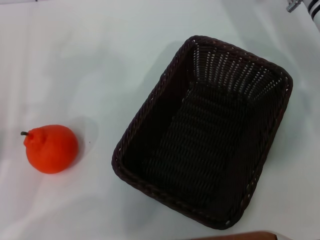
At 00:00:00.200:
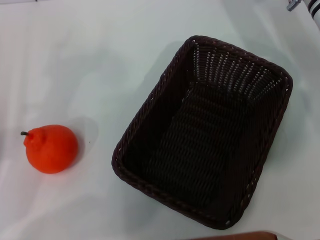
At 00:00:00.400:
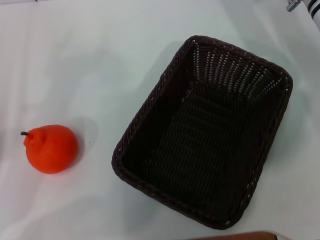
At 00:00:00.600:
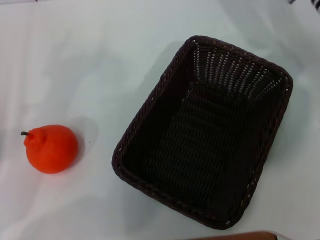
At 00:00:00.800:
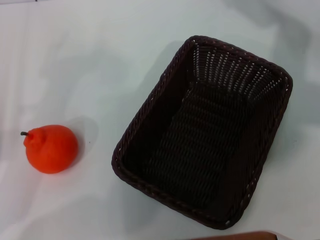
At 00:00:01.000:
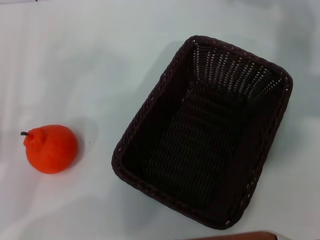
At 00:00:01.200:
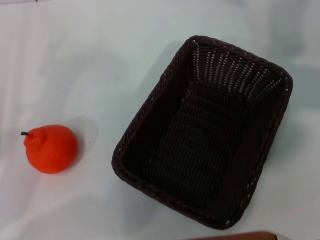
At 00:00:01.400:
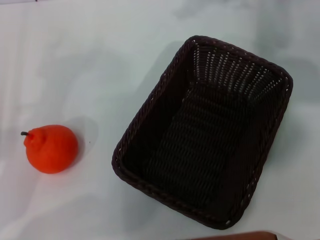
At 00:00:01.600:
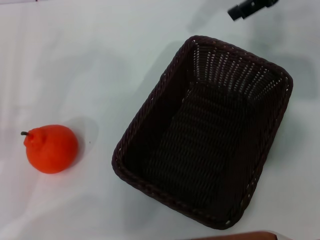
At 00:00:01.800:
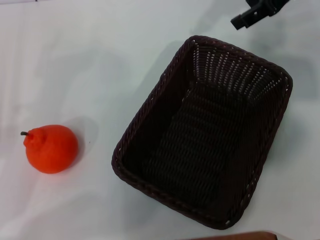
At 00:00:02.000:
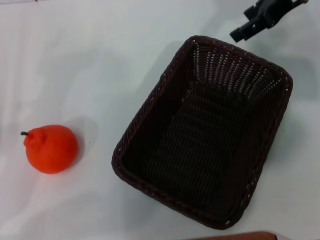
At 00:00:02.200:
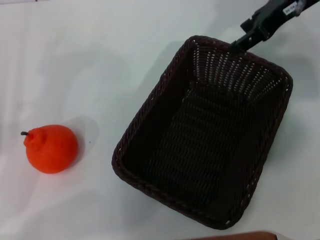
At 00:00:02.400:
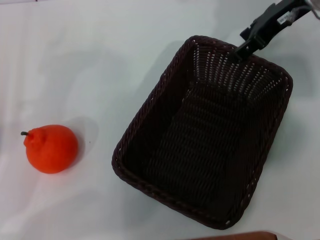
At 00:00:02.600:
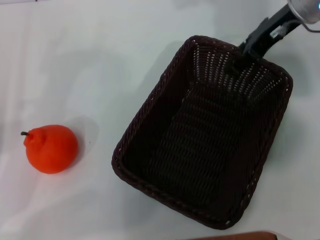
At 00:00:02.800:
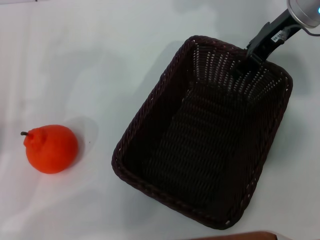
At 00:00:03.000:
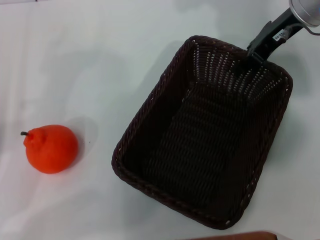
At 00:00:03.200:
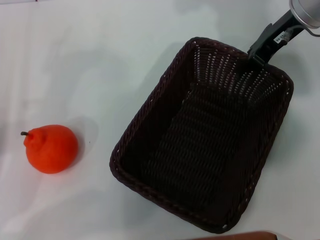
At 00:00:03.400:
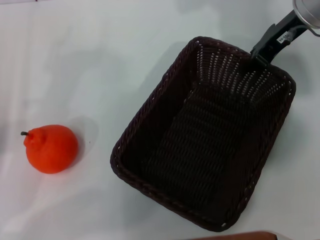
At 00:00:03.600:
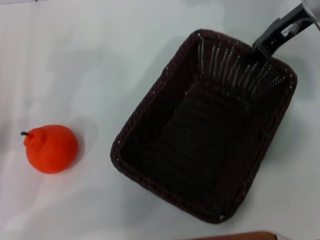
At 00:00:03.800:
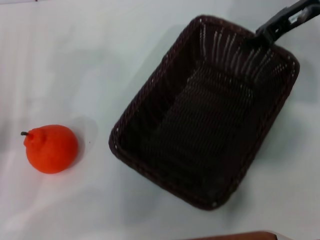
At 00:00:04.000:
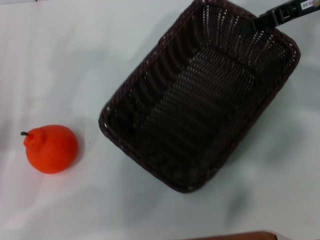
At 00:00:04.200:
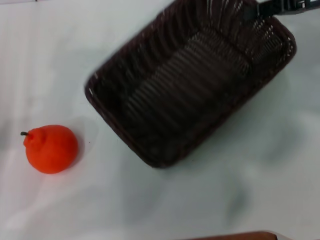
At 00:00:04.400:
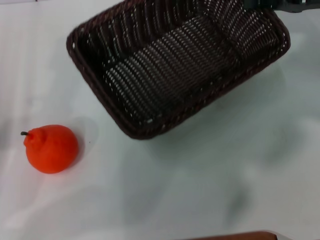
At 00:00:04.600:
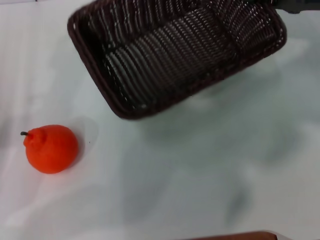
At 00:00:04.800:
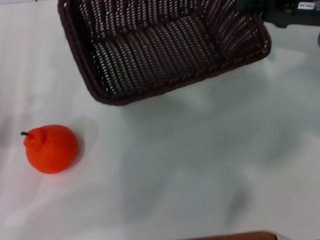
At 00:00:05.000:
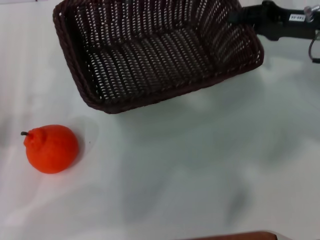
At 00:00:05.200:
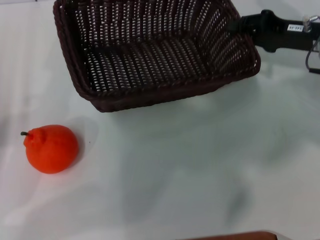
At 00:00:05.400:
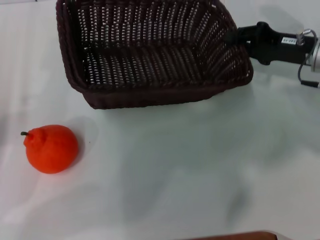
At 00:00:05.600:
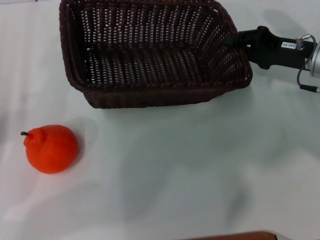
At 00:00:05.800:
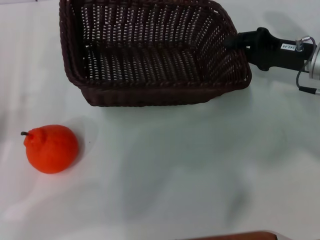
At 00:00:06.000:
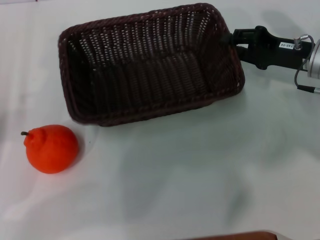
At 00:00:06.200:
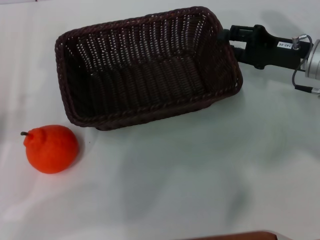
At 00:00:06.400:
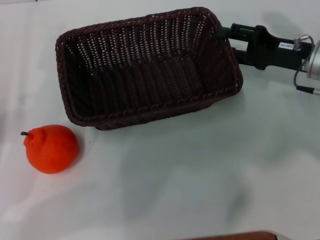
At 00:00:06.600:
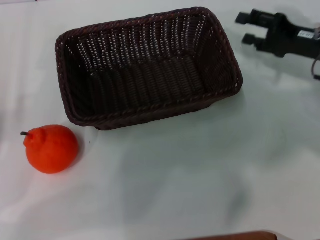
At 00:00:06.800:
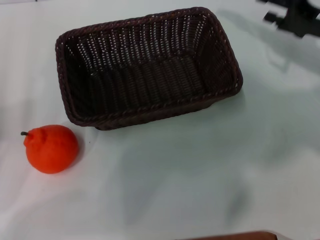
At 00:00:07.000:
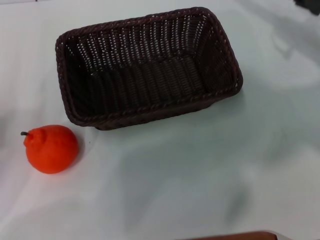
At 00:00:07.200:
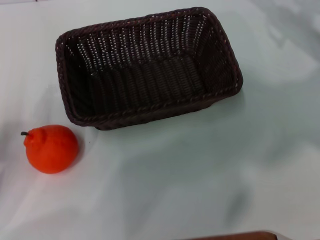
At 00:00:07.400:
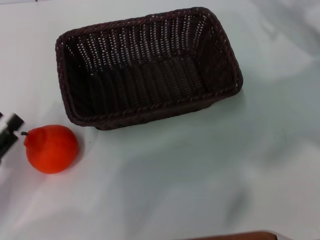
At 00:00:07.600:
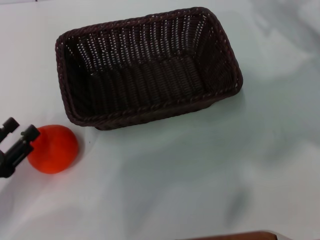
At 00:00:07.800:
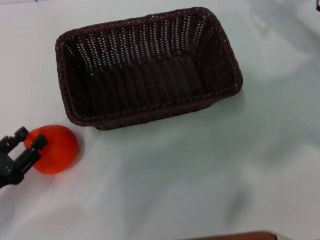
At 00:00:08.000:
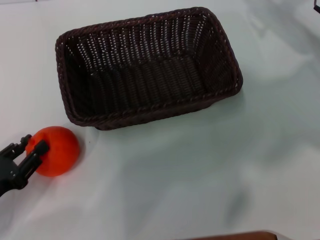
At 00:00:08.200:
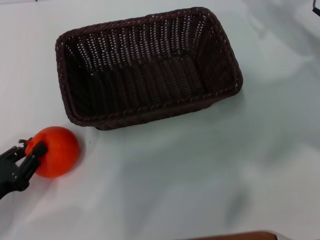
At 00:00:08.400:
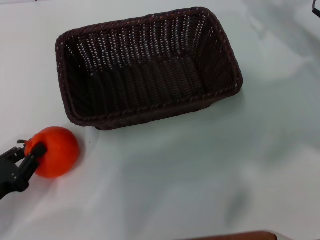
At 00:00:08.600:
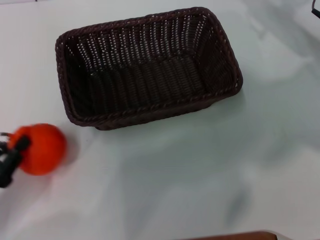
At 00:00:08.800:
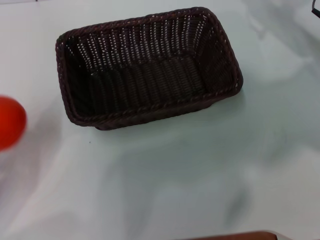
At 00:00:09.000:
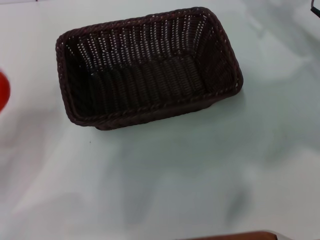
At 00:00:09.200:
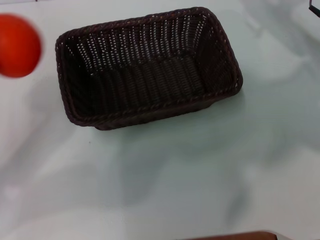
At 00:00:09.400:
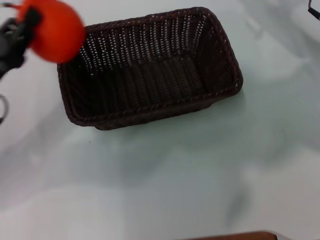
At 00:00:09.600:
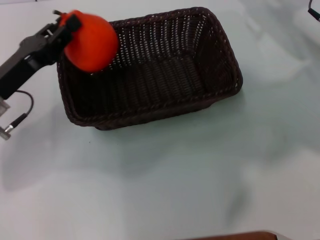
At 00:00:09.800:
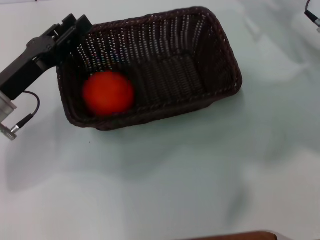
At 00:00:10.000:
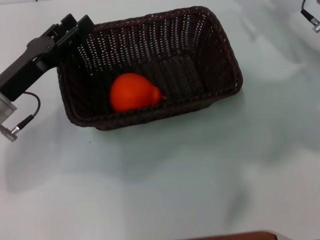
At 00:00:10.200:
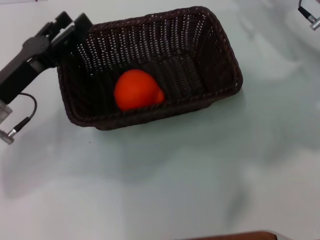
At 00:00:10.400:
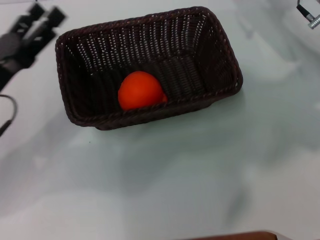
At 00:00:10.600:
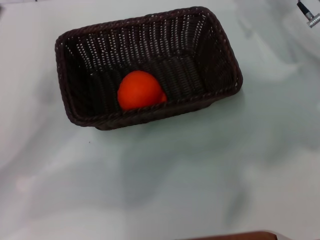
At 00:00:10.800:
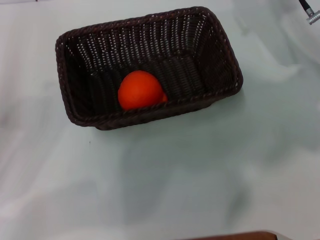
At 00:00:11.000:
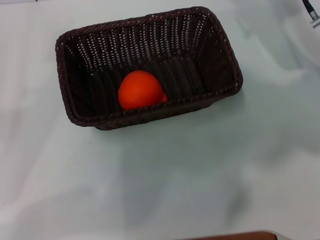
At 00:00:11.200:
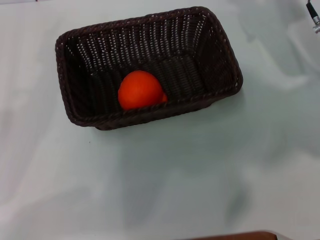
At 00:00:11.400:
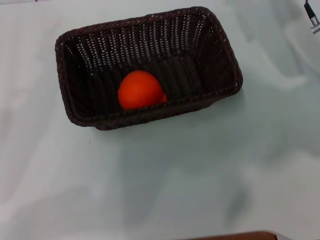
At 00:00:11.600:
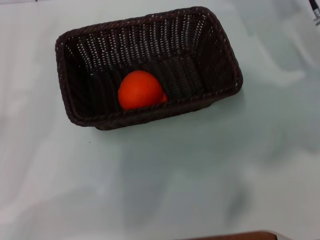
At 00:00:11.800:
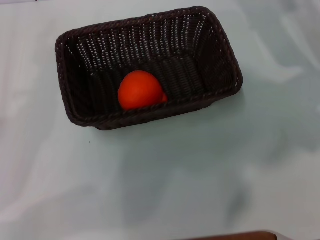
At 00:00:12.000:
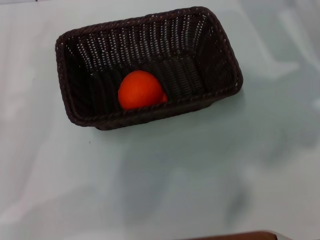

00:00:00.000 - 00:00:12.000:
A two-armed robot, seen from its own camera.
Task of the whole recording: the right gripper pick up the black basket and place it horizontally in the middle of the table, the left gripper pick up the orange and place it into the black basket.
Step, 00:00:00.000 - 00:00:04.000: Pick up the dark basket with the right gripper.
Step, 00:00:04.200 - 00:00:06.400: Place the dark basket in the center of view with the right gripper.
Step, 00:00:06.800 - 00:00:08.400: Pick up the orange with the left gripper.
Step, 00:00:08.800 - 00:00:09.800: Place the orange into the dark basket with the left gripper.
00:00:00.000 - 00:00:01.600: The right gripper goes about 15 cm upward.
00:00:01.600 - 00:00:03.000: The right gripper travels downward by some 5 cm.
00:00:03.000 - 00:00:04.400: The right gripper moves to the right, approximately 10 cm, and closes up.
00:00:04.400 - 00:00:06.000: The right gripper heads downward, covering about 10 cm.
00:00:06.000 - 00:00:07.600: The left gripper goes some 5 cm backward. Meanwhile the right gripper moves forward and upward, some 10 cm, and opens up.
00:00:07.600 - 00:00:09.000: The left gripper closes.
00:00:09.000 - 00:00:10.400: The left gripper goes about 10 cm forward and to the right, and opens up.
00:00:10.400 - 00:00:12.000: The left gripper is displaced to the left and backward by approximately 10 cm.
